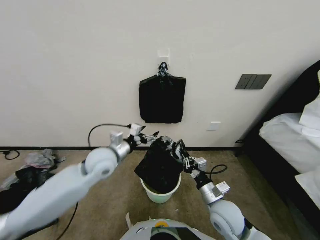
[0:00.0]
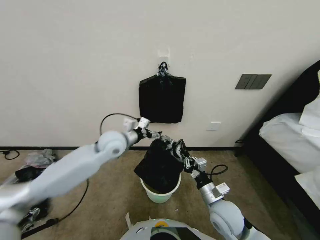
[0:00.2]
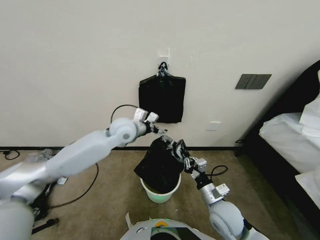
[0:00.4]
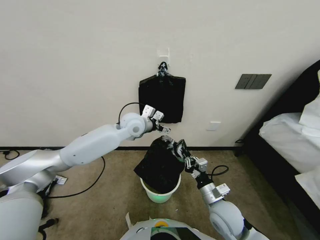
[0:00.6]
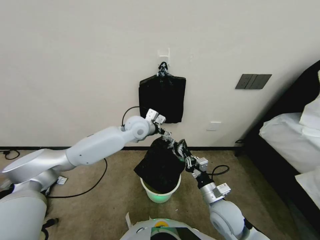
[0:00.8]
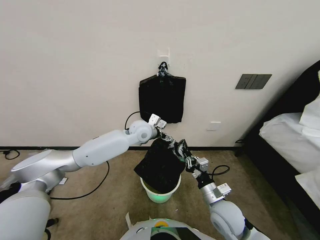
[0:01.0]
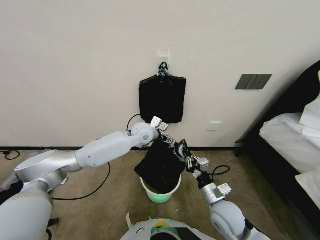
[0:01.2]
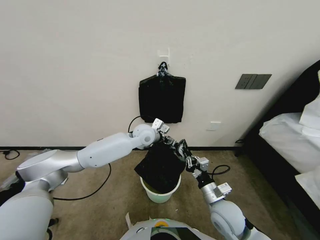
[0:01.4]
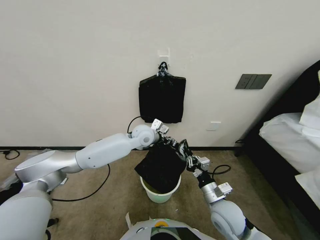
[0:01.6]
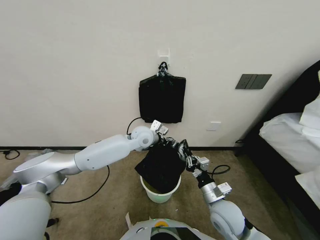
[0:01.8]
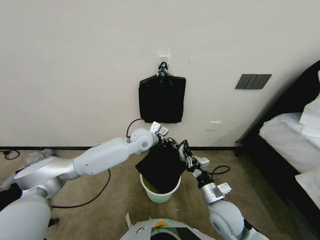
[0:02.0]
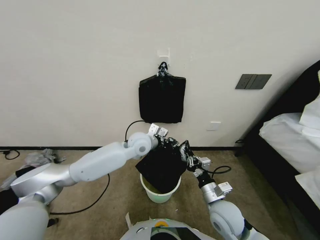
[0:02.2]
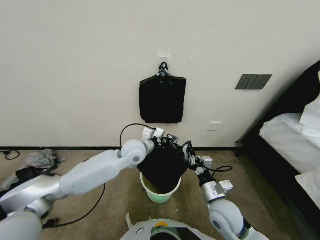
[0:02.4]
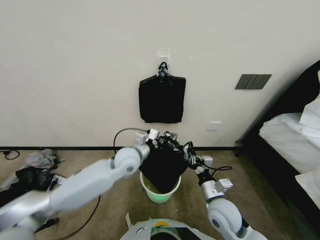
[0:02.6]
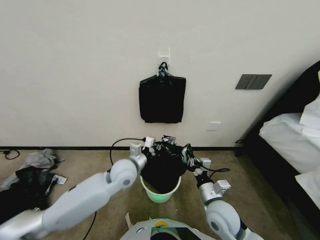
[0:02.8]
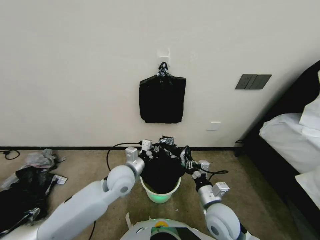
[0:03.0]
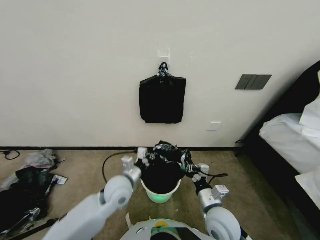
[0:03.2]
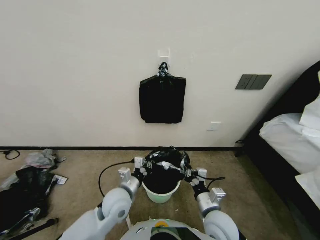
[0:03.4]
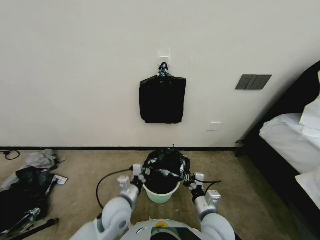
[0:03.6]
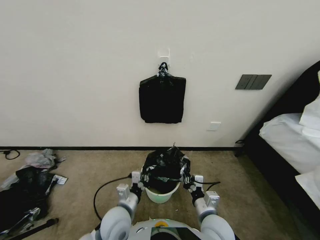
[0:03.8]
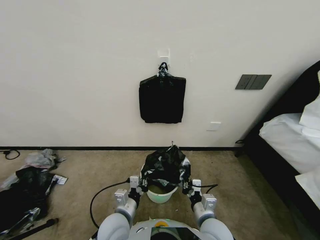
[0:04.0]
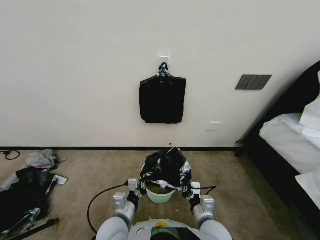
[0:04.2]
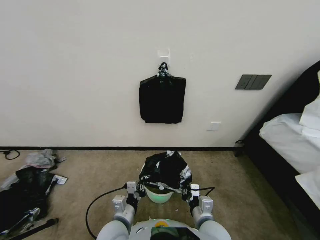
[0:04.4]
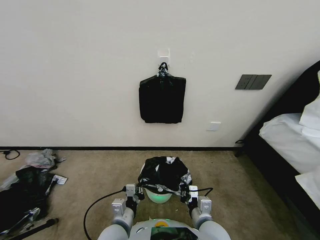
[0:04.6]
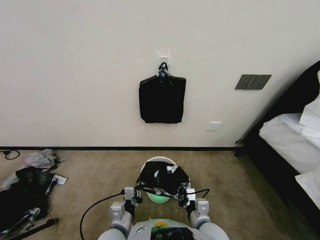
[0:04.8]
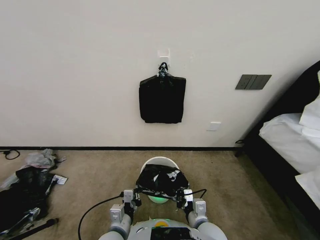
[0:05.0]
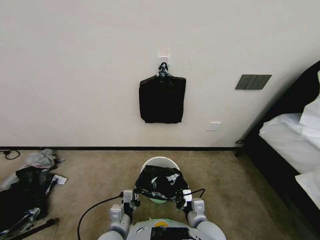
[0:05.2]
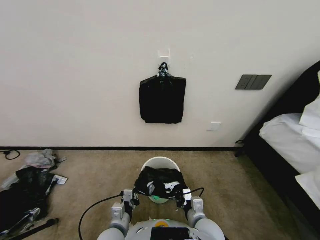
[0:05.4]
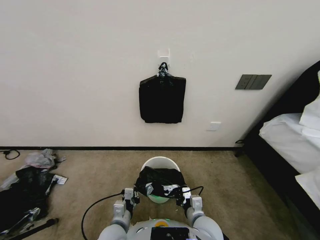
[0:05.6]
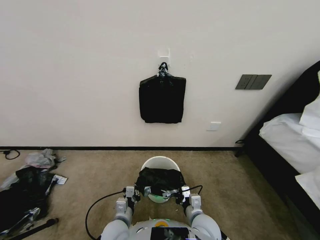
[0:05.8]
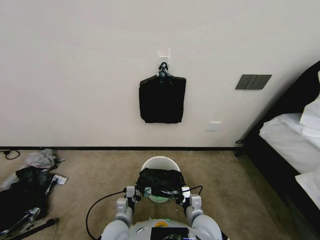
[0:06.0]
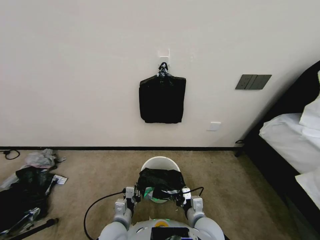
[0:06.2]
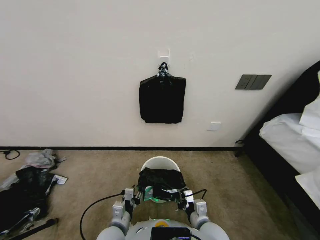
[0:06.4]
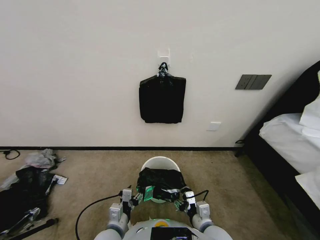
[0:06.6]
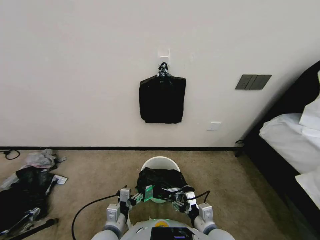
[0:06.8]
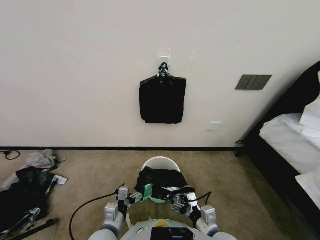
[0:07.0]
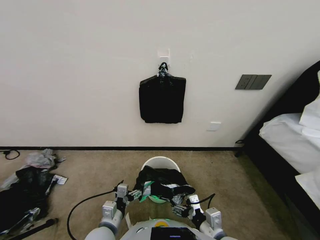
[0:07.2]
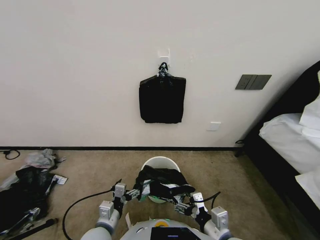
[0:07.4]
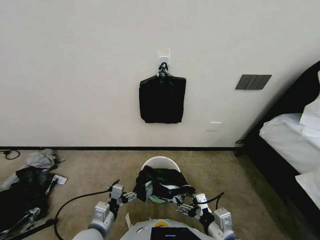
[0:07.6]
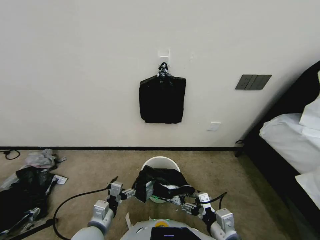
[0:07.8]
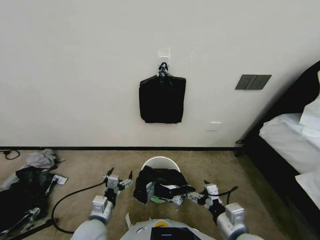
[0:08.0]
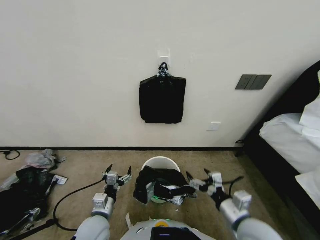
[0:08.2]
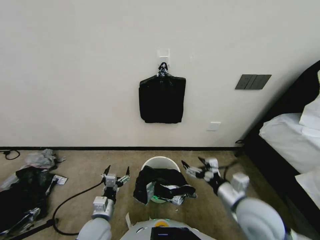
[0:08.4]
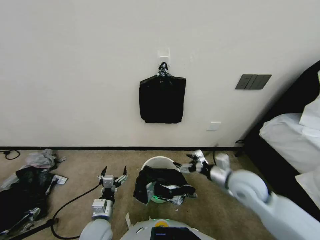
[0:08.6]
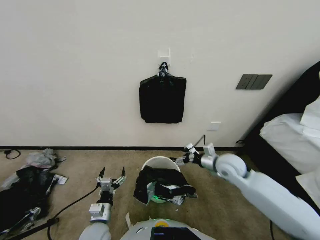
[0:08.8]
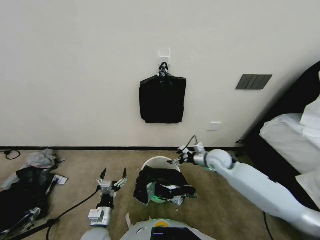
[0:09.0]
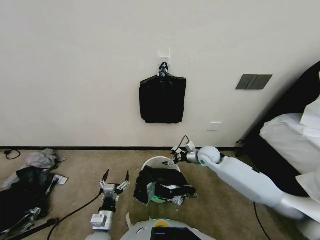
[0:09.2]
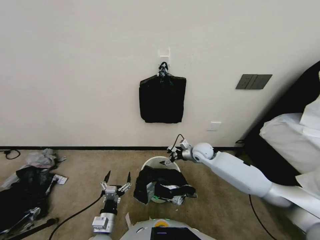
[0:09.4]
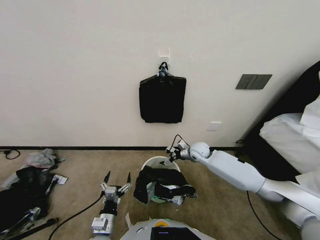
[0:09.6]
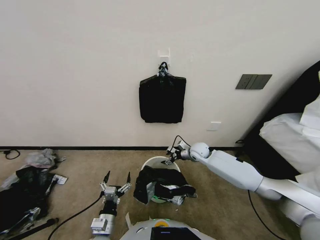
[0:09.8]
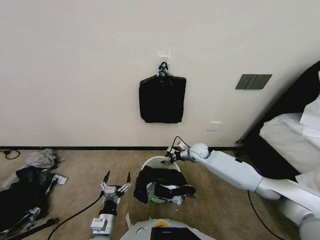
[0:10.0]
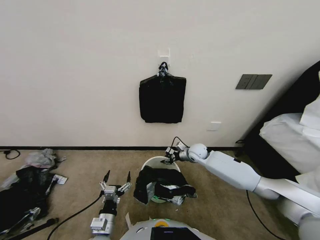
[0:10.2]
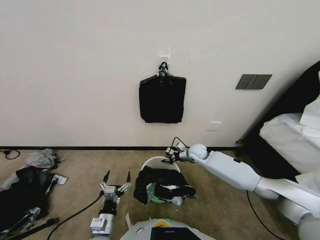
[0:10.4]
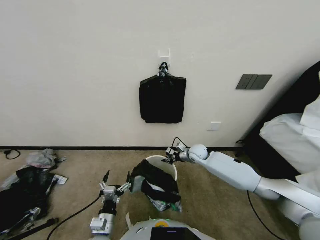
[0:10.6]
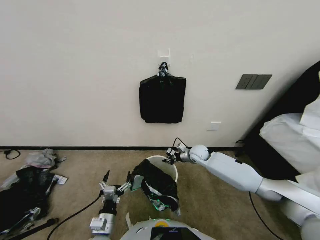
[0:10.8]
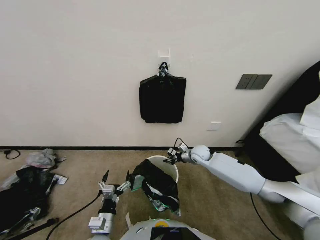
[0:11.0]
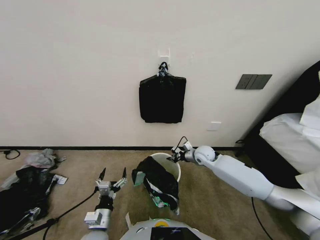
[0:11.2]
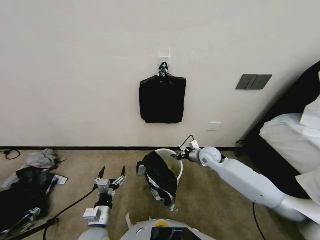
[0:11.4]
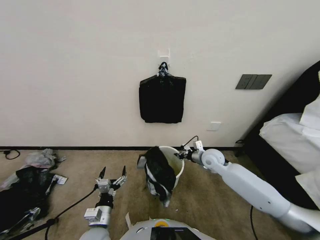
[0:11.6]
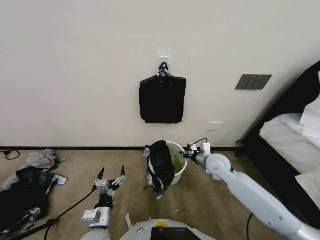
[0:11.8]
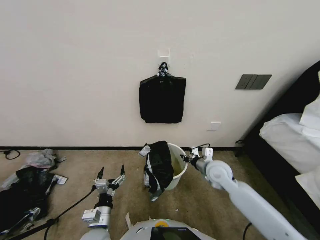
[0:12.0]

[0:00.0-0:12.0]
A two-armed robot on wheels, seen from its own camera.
Task of the whole recording: Place a trash bag onto the trash bin.
0:00.0 to 0:01.6: The left gripper goes about 20 cm forward and to the right.
0:01.6 to 0:03.0: The left gripper shifts approximately 15 cm backward and to the left, and closes.
0:03.0 to 0:04.4: The right gripper goes about 5 cm backward, while the left gripper moves backward and downward, about 20 cm.
0:04.4 to 0:06.0: The left gripper goes some 5 cm downward.
0:06.0 to 0:07.6: The right gripper travels upward and backward by about 10 cm, and opens its fingers. The left gripper heads upward and to the left, covering roughly 10 cm, and opens.
0:07.6 to 0:09.0: The right gripper shifts roughly 30 cm forward. Meanwhile the left gripper heads downward, covering about 5 cm.
0:09.0 to 0:10.4: The right gripper is displaced forward, downward and to the left by about 15 cm, and closes.
0:10.4 to 0:12.0: The right gripper goes some 15 cm backward and upward.

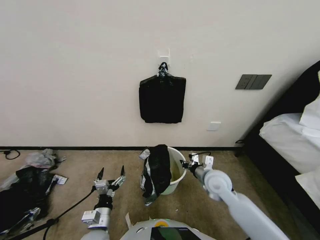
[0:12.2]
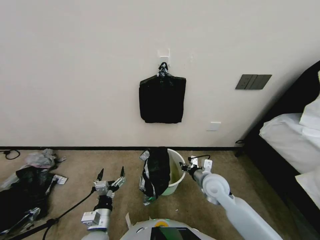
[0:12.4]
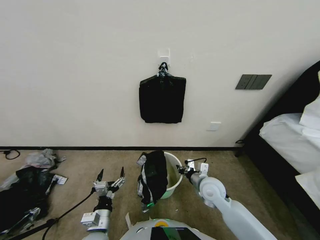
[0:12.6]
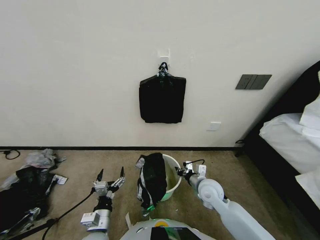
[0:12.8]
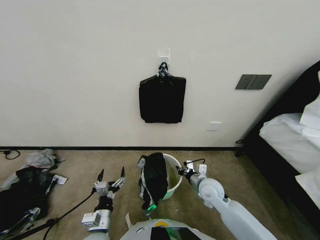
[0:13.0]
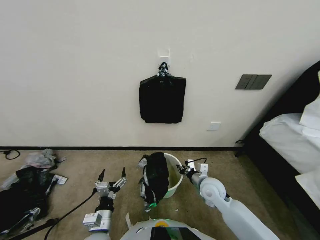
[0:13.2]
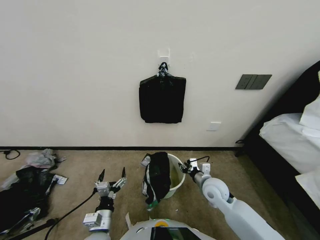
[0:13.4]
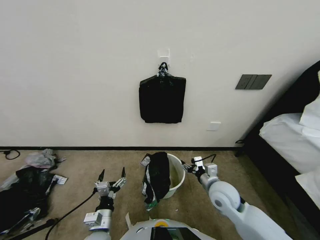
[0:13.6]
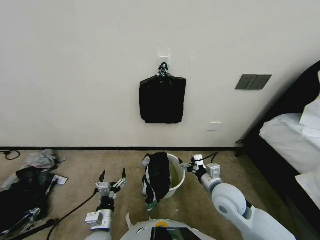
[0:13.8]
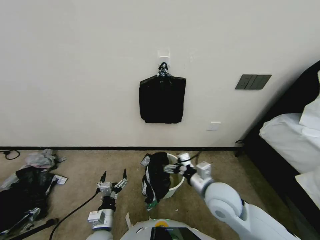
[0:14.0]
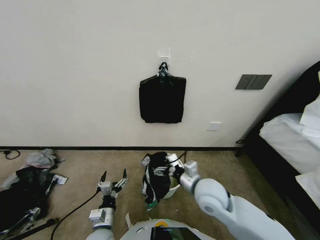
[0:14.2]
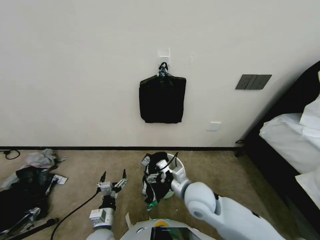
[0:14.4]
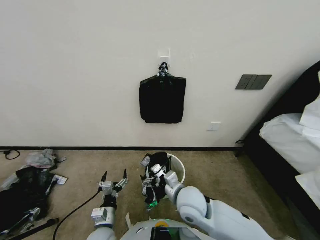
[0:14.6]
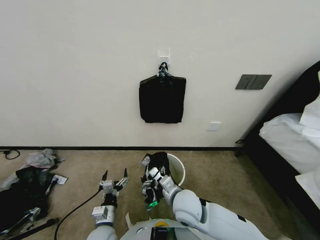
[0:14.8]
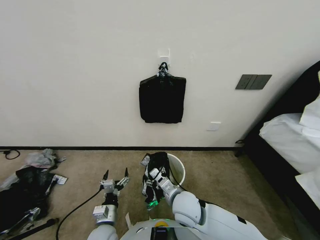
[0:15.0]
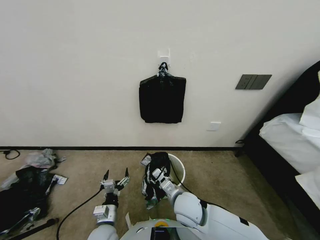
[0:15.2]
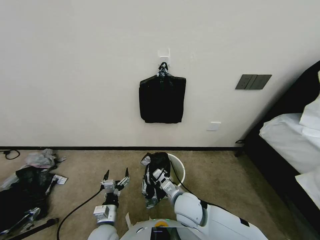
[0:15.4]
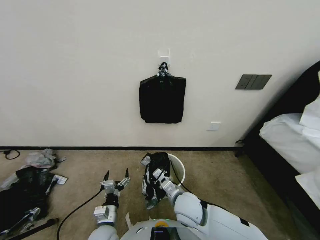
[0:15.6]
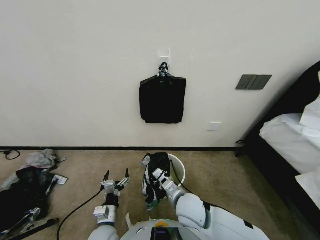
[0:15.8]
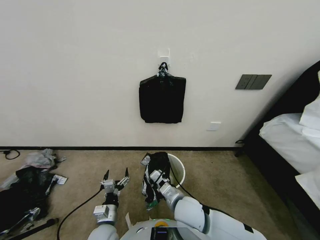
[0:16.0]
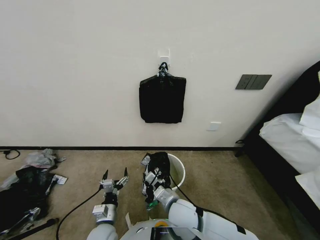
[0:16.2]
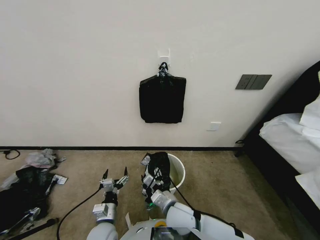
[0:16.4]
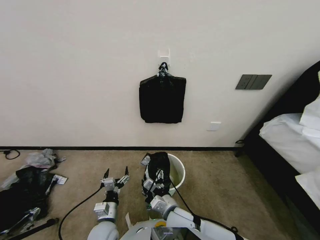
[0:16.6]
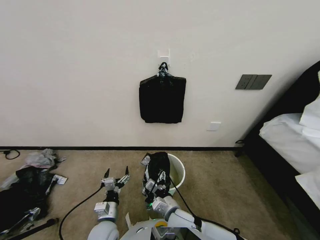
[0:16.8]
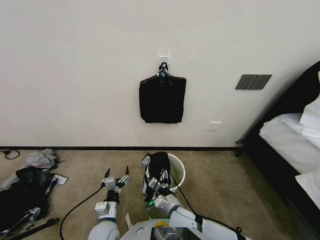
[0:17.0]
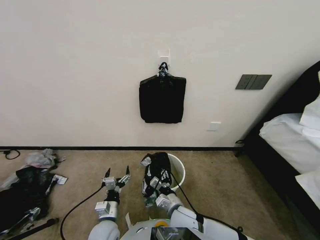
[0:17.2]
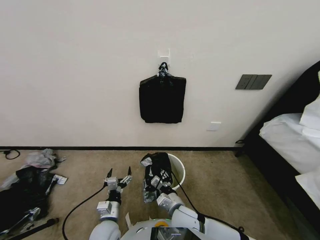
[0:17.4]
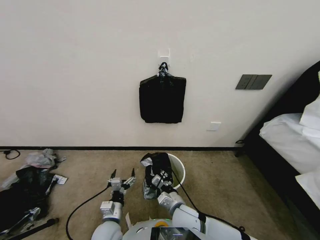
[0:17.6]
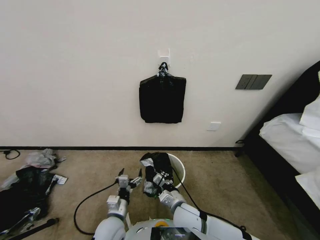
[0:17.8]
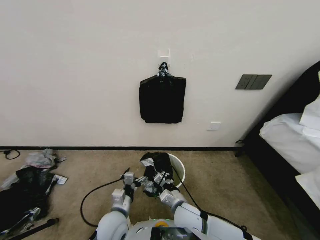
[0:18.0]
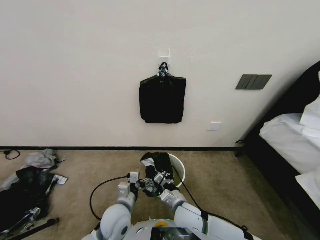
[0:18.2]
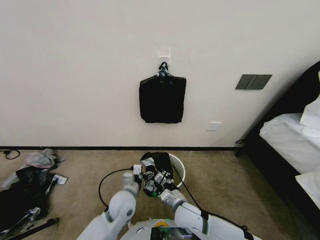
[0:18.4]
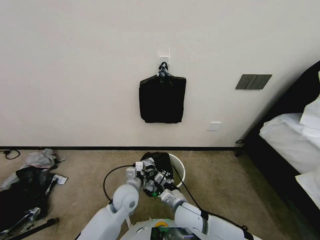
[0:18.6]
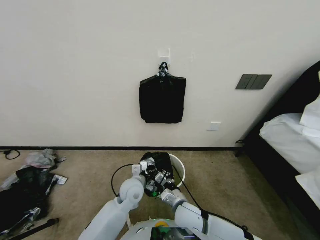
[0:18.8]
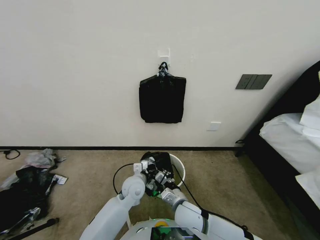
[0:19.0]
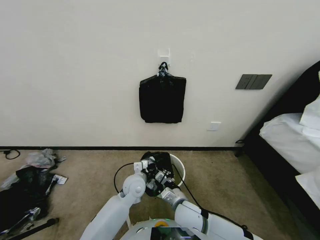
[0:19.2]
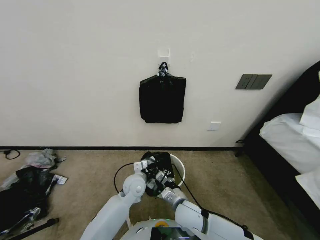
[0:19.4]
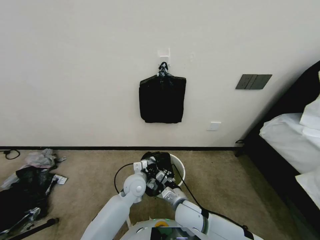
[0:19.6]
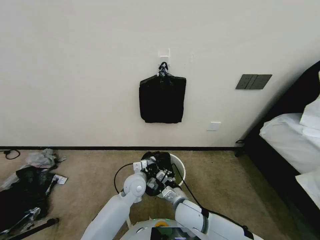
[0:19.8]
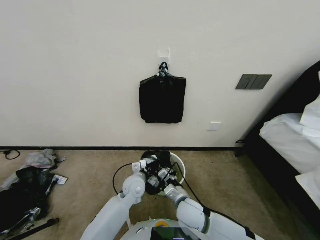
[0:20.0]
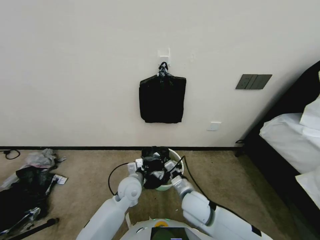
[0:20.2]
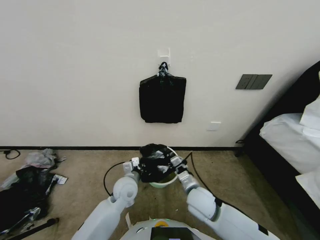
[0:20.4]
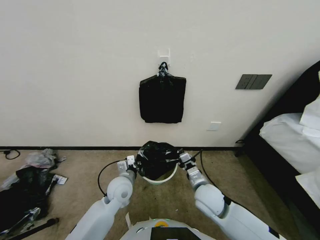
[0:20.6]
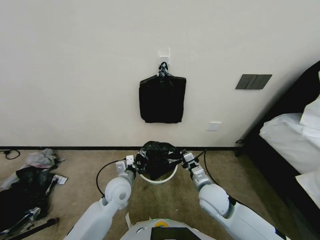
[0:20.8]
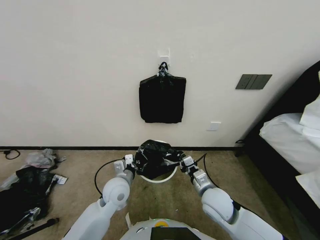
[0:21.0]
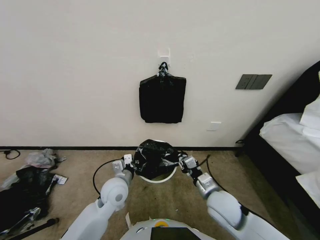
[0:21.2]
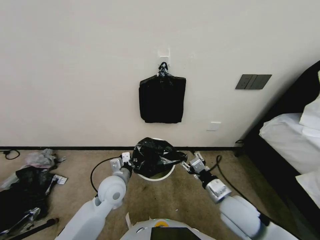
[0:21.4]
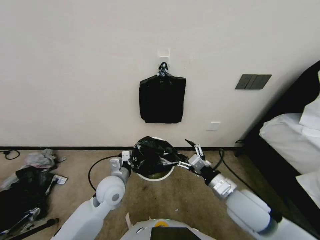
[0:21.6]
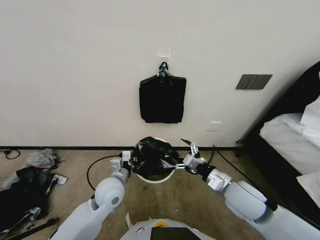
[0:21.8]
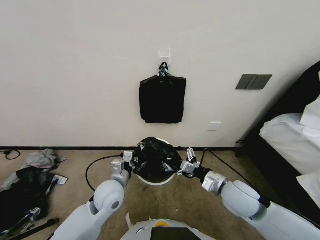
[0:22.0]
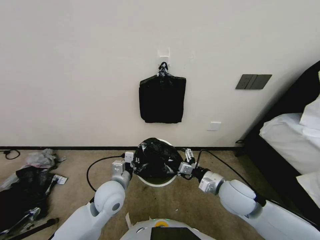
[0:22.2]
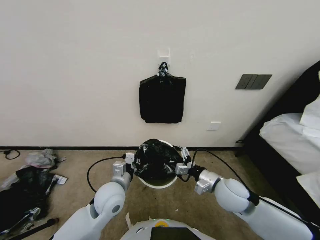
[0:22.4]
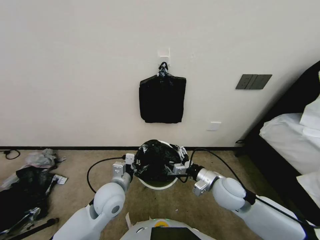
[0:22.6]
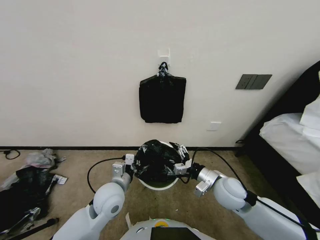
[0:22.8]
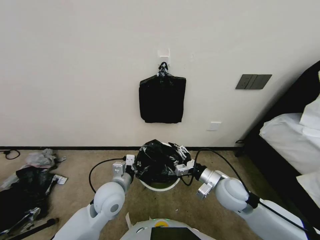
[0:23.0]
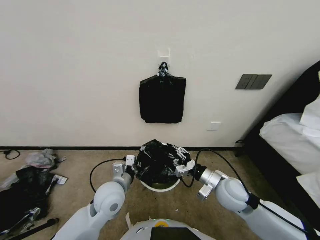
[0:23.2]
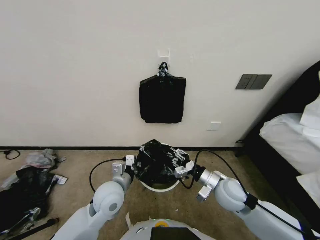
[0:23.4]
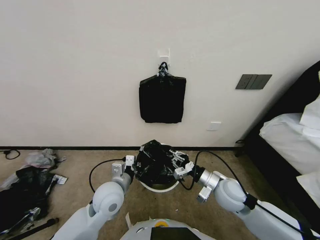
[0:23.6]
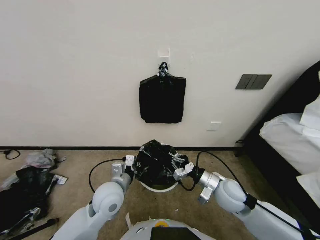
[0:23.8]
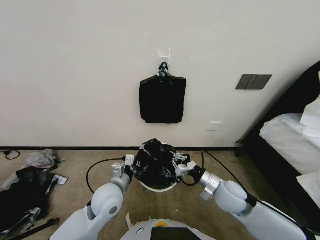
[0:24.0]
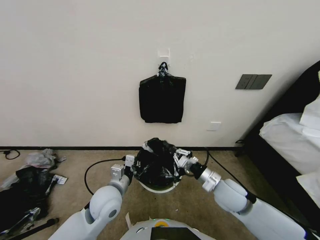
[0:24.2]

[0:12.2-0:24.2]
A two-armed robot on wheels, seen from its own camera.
Task of the whole recording: Place a trash bag onto the trash bin.
0:12.2 to 0:13.8: The right gripper shifts about 5 cm backward, and opens up.
0:13.8 to 0:15.2: The right gripper is displaced to the left by roughly 15 cm.
0:15.2 to 0:16.6: The right gripper shifts by about 5 cm, and closes, then reopens.
0:16.6 to 0:18.2: The right gripper closes; the left gripper heads upward, covering roughly 5 cm.
0:18.2 to 0:19.8: The left gripper goes about 15 cm forward, and closes its fingers.
0:19.8 to 0:21.2: The right gripper shifts about 10 cm to the right; the left gripper is displaced to the left and upward by approximately 10 cm.
0:21.2 to 0:22.6: The right gripper ends up some 5 cm from where it was, and opens.
0:22.6 to 0:24.2: The right gripper closes.
